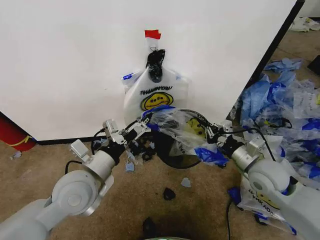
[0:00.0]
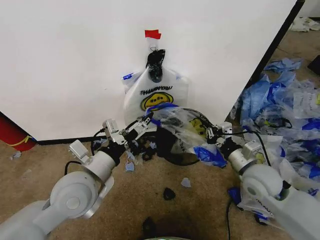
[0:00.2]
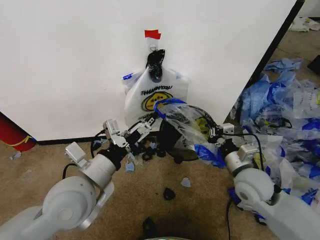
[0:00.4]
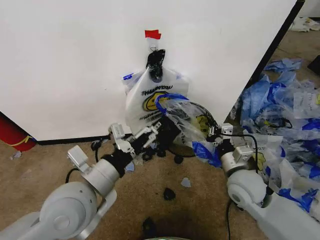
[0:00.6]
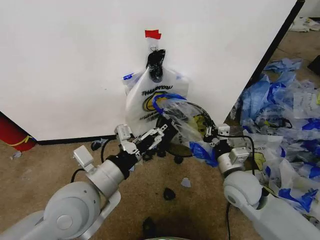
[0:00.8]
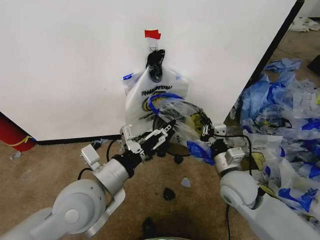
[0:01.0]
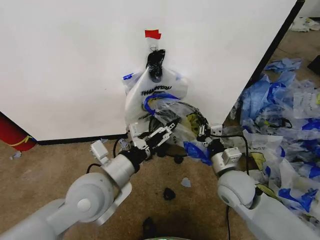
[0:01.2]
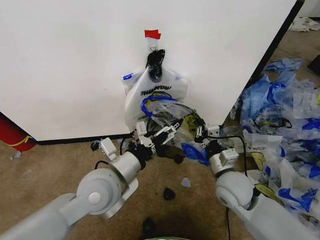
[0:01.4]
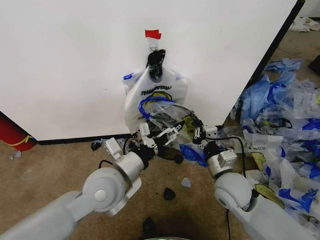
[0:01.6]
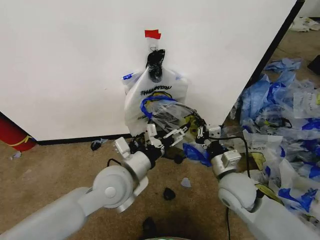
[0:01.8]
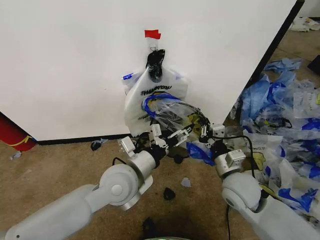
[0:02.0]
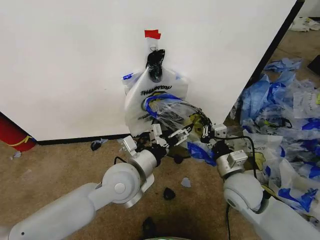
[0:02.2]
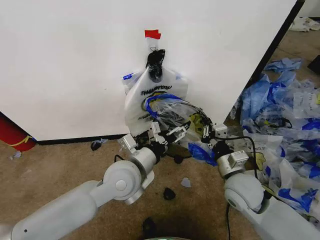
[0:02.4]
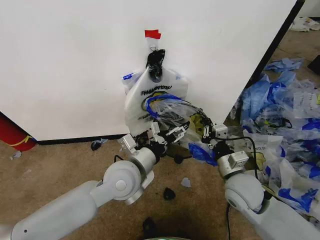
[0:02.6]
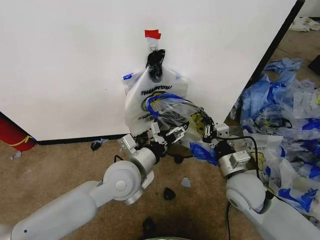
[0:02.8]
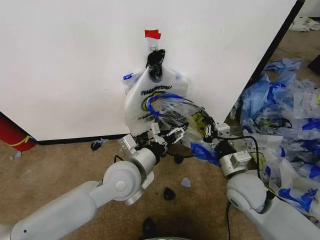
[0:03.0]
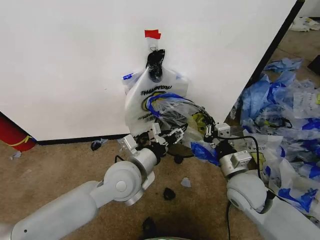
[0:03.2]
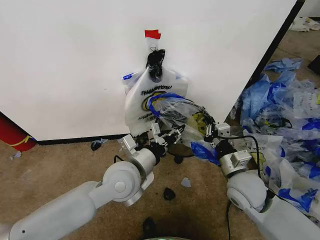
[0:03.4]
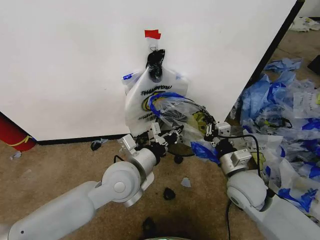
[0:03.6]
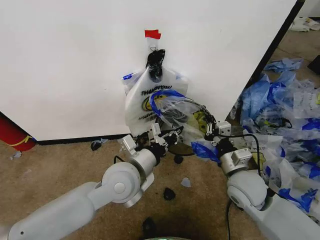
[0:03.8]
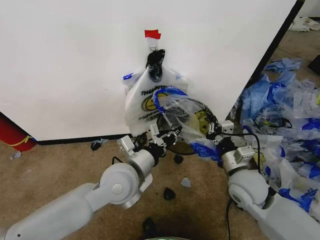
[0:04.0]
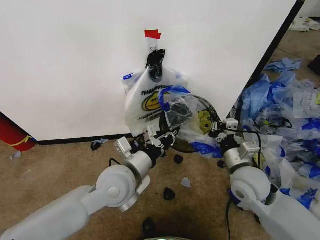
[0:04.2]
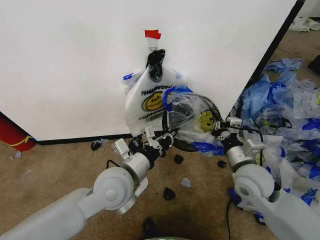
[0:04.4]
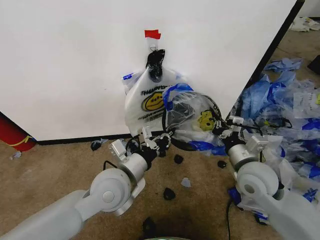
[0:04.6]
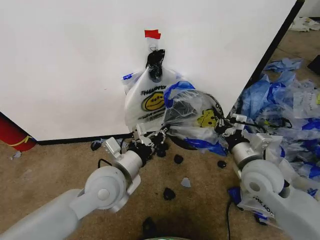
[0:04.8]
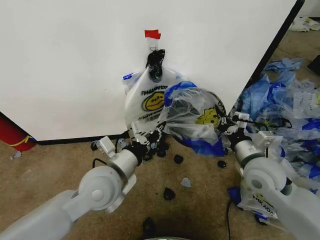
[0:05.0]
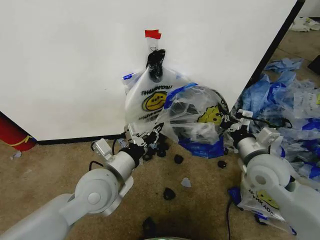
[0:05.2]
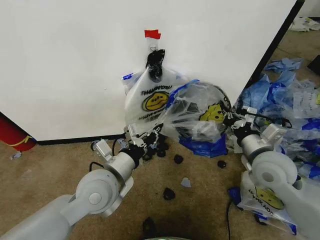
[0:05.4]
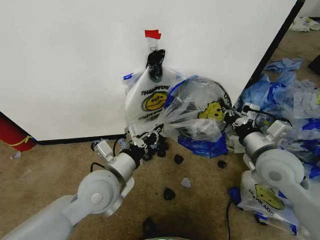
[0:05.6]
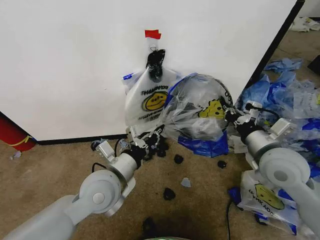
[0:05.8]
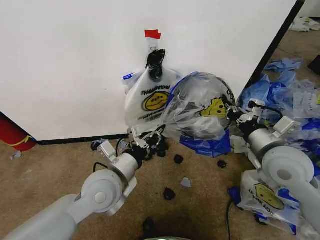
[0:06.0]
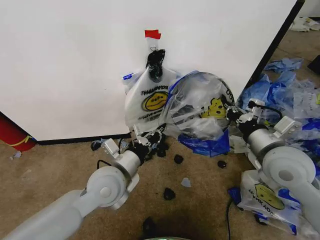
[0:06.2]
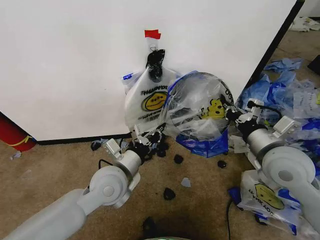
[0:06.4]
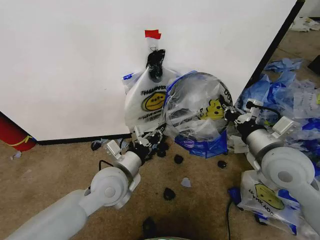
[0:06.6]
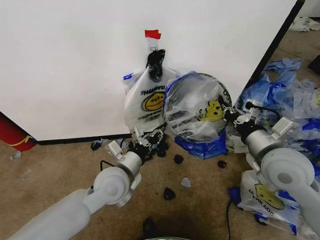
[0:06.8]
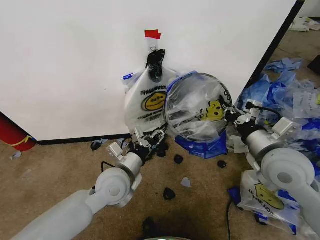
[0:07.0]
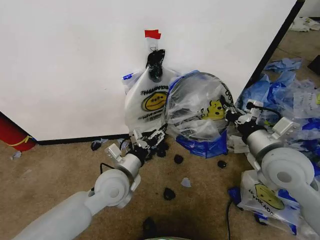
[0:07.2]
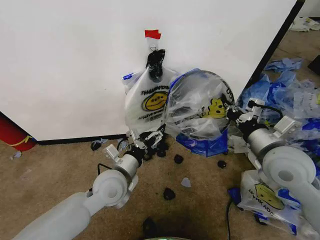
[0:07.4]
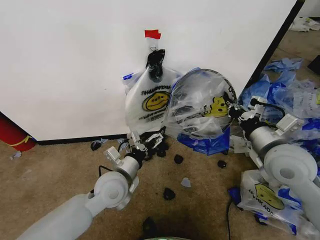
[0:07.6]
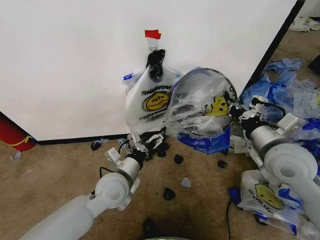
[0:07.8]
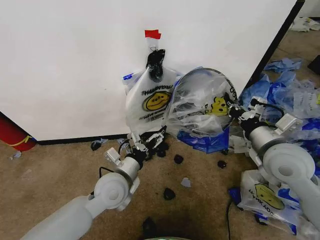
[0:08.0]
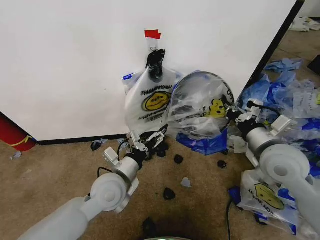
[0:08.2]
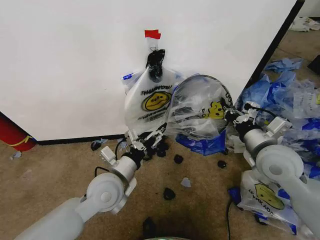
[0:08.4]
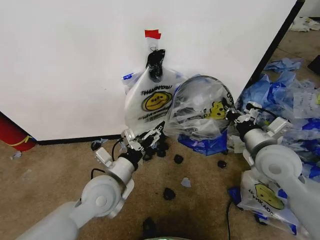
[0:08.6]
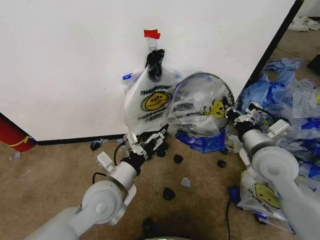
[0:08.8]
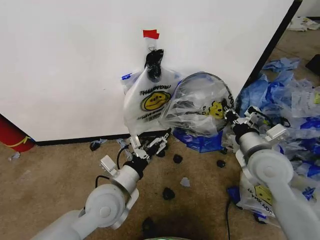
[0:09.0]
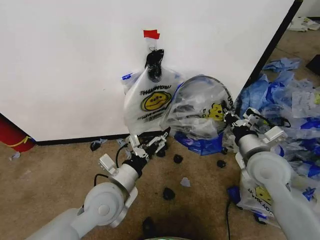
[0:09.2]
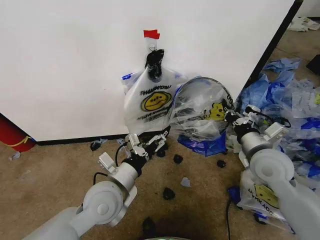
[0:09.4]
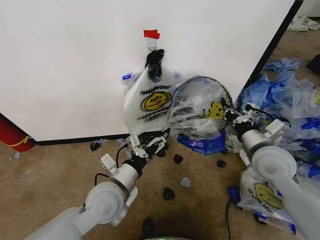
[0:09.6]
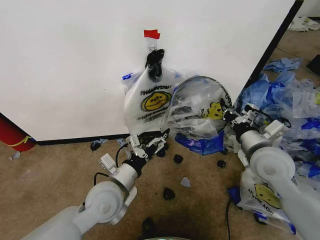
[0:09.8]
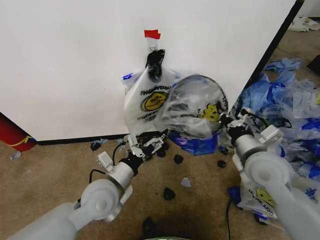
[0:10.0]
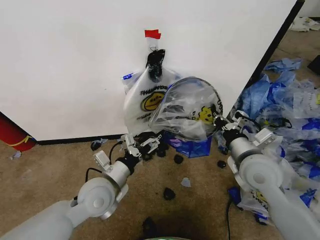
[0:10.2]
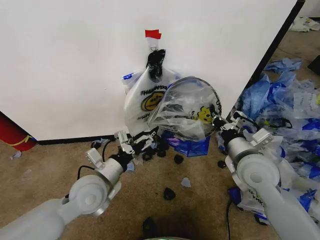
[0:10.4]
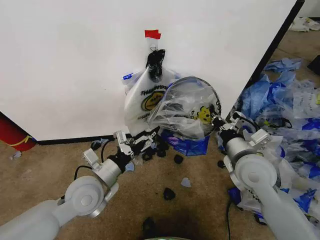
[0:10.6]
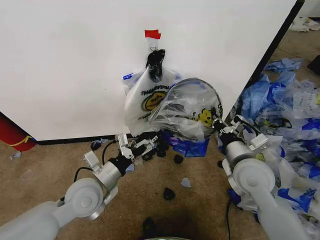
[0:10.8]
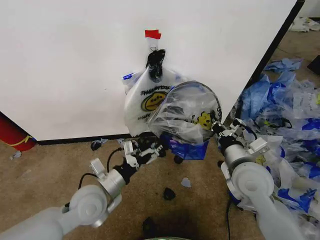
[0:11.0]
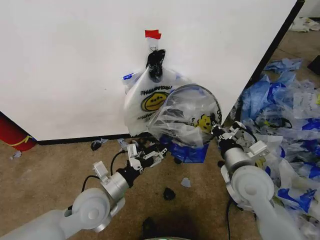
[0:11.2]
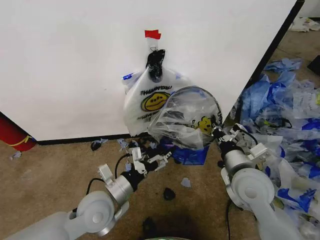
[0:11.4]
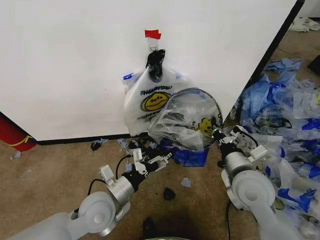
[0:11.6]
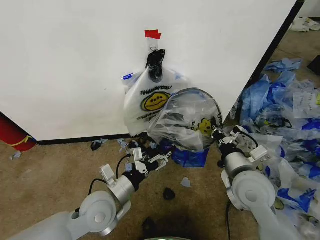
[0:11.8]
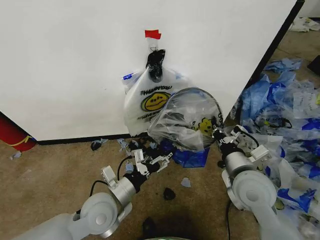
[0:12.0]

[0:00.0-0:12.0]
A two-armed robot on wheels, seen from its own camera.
Task of the whole recording: Pick up the garbage bag from the wall and place it over the trash bin.
0:00.0 to 0:01.6: The right gripper shifts approximately 10 cm to the left. The left gripper is displaced to the right by some 5 cm.
0:01.6 to 0:03.0: There are only small adjustments of the grippers.
0:03.0 to 0:04.4: The left gripper closes.
0:04.4 to 0:06.0: The right gripper moves upward, some 10 cm.
0:06.0 to 0:07.6: The left gripper travels downward by approximately 5 cm, and opens.
0:07.6 to 0:09.0: The left gripper is displaced backward by some 5 cm.
0:09.0 to 0:10.4: The left gripper shifts some 5 cm to the left.
0:10.4 to 0:12.0: The left gripper moves some 5 cm.

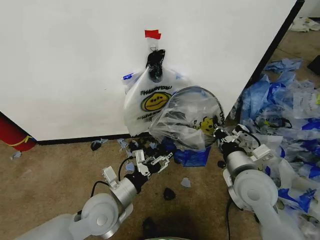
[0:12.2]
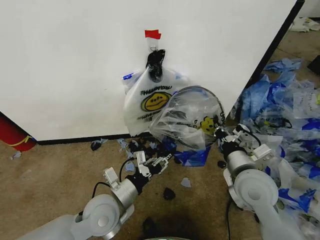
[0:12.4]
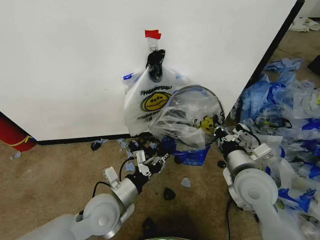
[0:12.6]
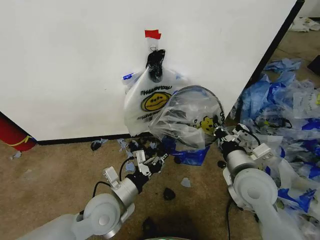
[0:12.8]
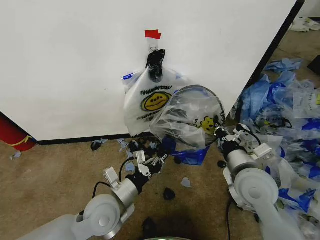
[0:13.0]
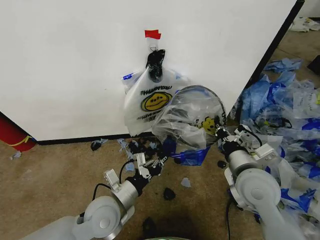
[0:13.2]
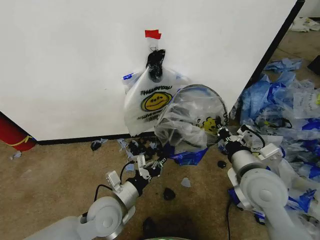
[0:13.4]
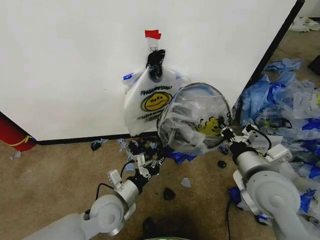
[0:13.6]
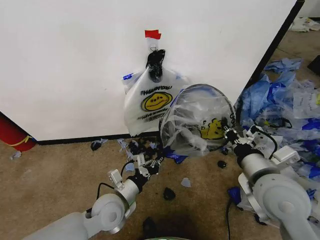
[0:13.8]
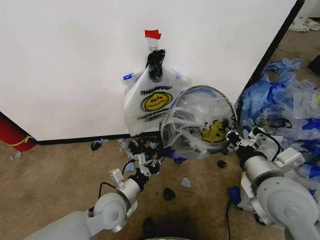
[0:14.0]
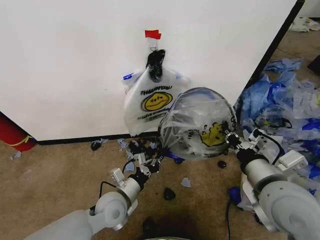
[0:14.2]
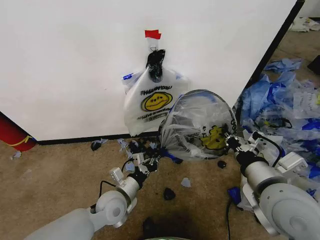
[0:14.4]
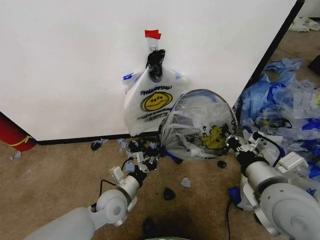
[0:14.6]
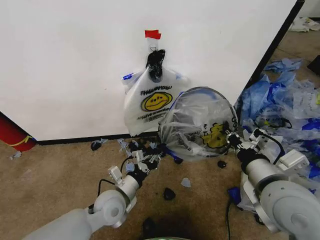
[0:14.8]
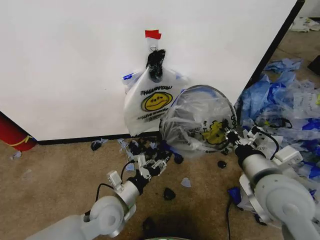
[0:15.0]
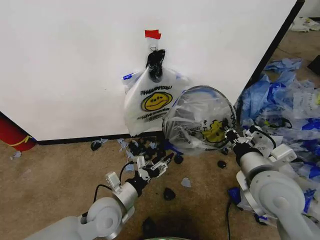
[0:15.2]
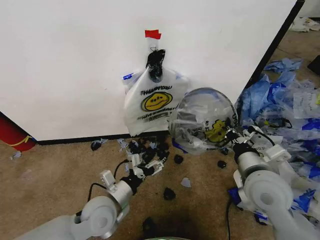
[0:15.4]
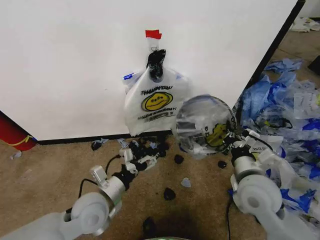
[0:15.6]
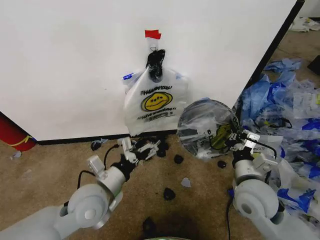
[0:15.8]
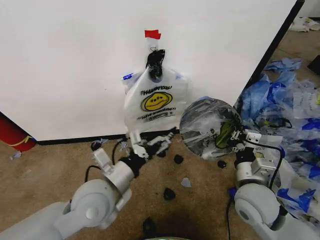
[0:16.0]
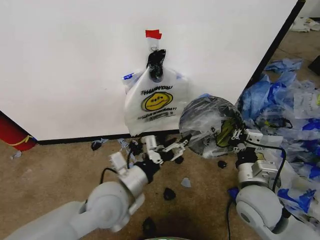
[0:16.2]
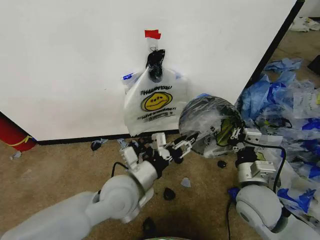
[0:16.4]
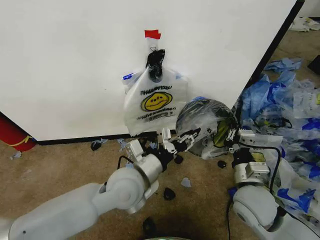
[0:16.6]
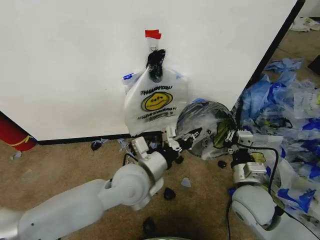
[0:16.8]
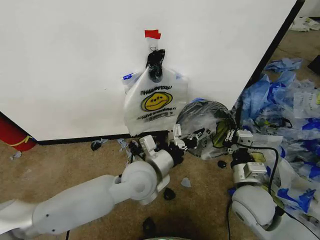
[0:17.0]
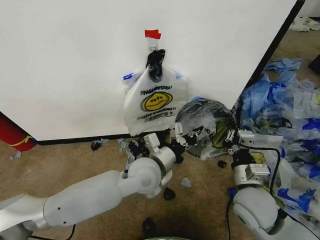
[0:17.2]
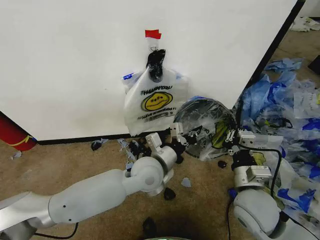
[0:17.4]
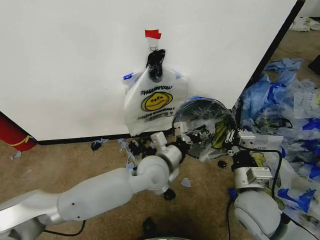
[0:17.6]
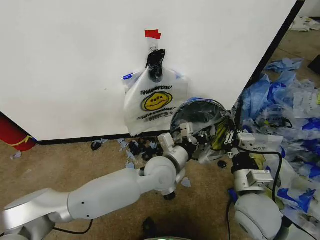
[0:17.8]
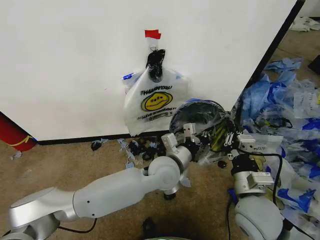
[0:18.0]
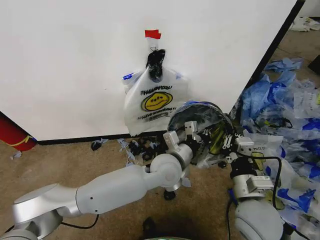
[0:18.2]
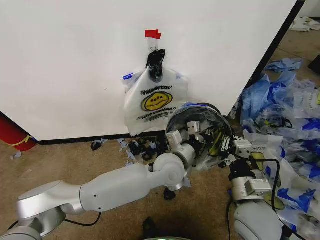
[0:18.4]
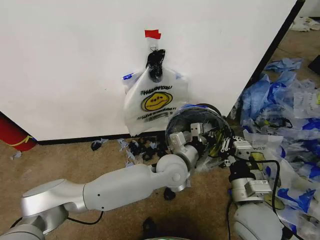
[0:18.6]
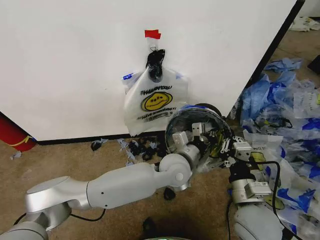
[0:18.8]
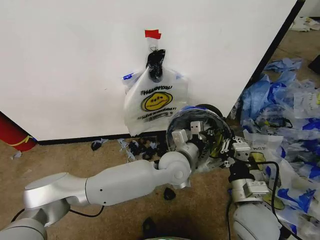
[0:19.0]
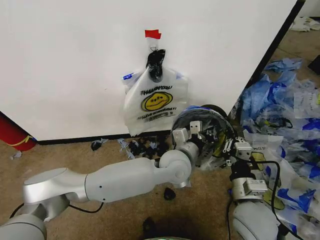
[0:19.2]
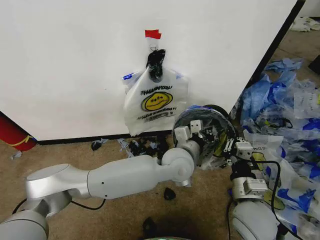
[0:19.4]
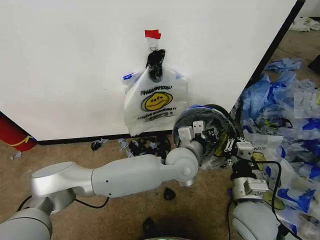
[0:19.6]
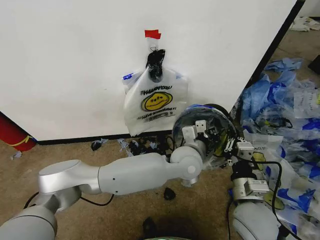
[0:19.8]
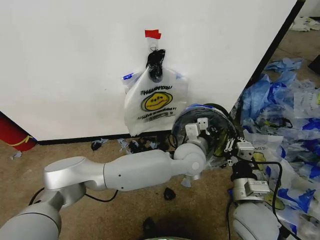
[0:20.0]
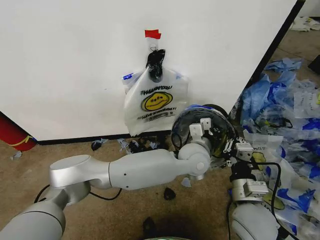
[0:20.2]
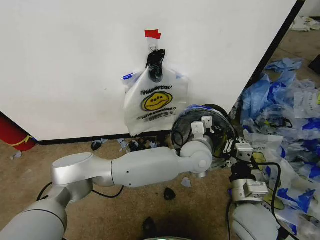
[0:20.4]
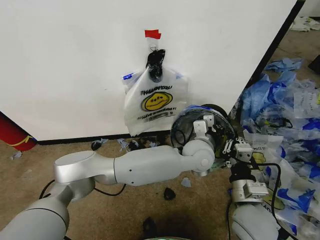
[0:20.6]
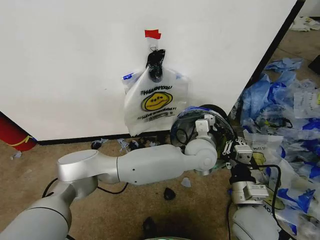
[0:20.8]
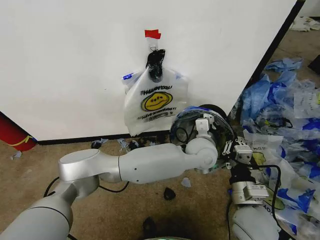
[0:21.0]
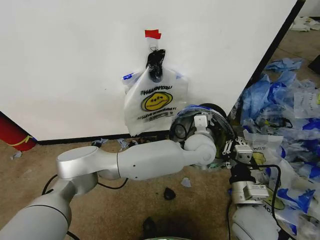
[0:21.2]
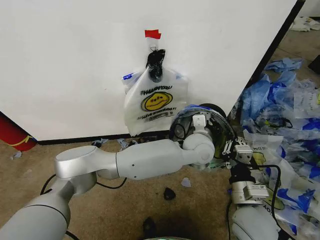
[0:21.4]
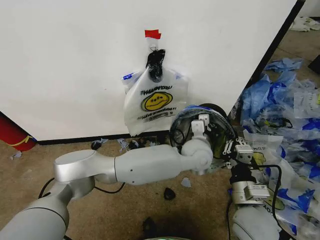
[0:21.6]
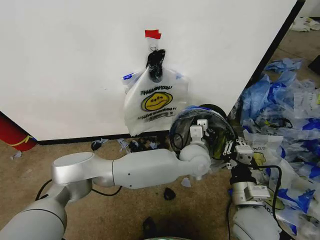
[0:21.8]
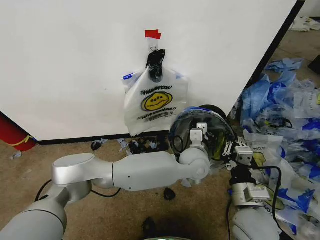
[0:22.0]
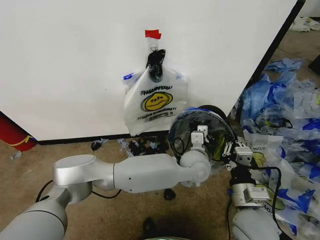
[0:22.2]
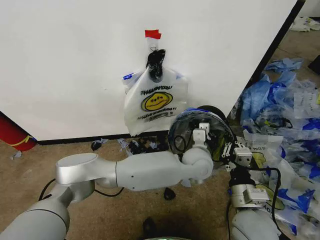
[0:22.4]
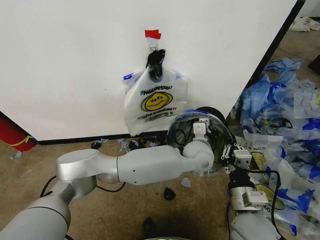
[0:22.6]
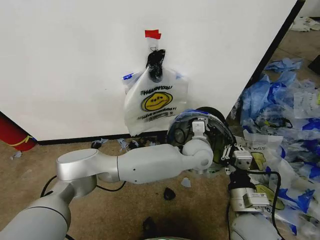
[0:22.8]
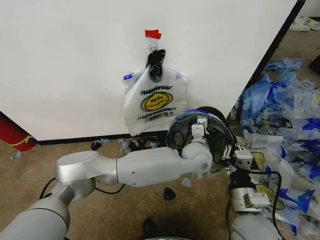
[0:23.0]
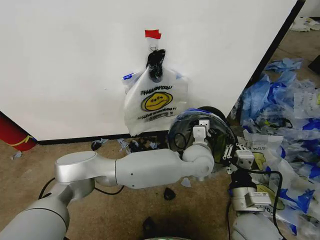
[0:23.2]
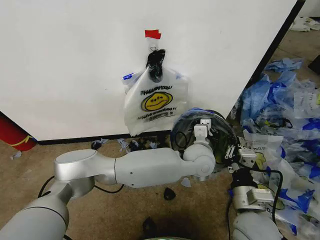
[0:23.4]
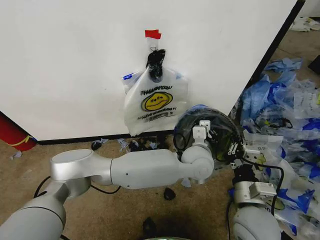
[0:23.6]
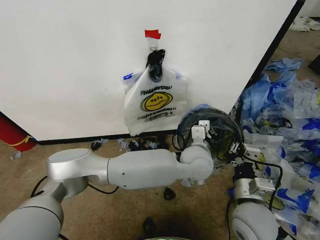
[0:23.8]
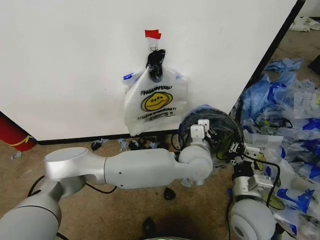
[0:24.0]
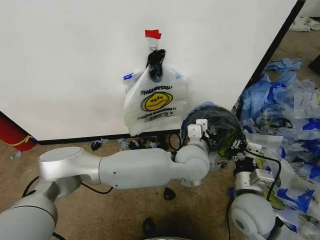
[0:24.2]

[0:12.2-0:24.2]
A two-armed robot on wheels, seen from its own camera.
Task of the whole recording: Pick up the garbage bag from the wall and place it over the trash bin.
0:12.2 to 0:13.8: The left gripper moves downward, approximately 5 cm, and closes. Meanwhile the right gripper changes place by roughly 5 cm.
0:13.8 to 0:15.2: The left gripper opens up.
0:15.2 to 0:16.6: The right gripper travels downward by approximately 10 cm; the left gripper is displaced upward and to the right by approximately 15 cm.
0:16.6 to 0:18.2: The left gripper shifts approximately 10 cm to the right and forward, and closes its fingers.
0:18.2 to 0:19.8: The left gripper is displaced to the right by approximately 5 cm.
0:19.8 to 0:21.2: The left gripper ends up about 5 cm from where it was.
0:21.2 to 0:22.6: There are only small adjustments of the grippers.
0:22.6 to 0:24.2: The left gripper moves some 5 cm.
